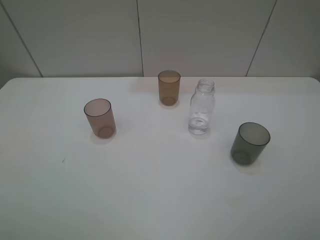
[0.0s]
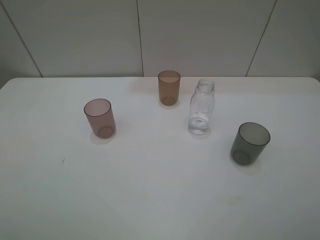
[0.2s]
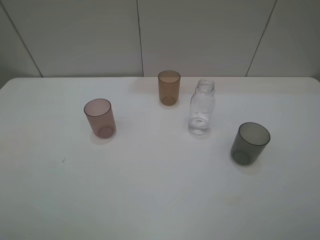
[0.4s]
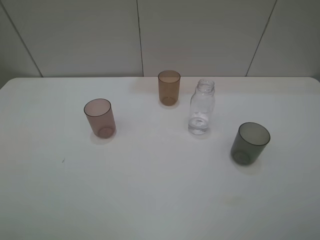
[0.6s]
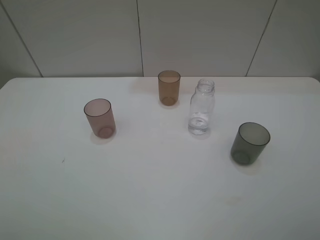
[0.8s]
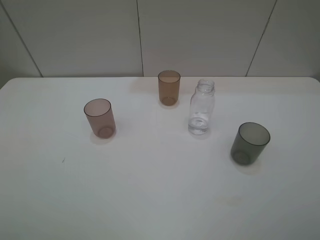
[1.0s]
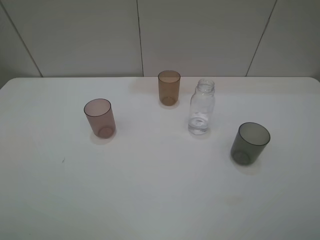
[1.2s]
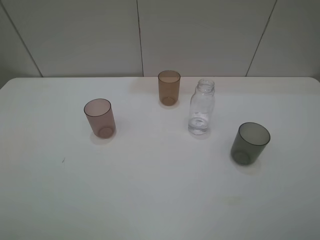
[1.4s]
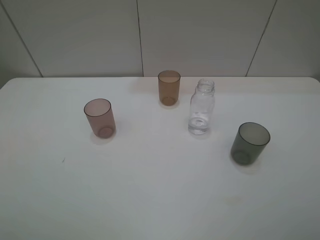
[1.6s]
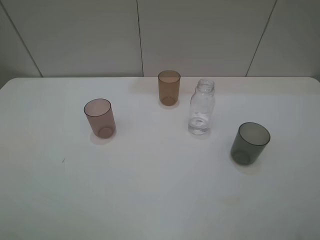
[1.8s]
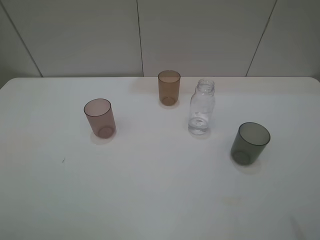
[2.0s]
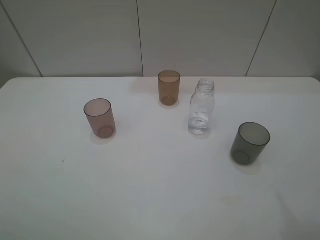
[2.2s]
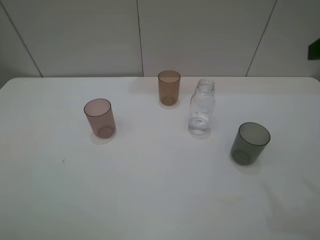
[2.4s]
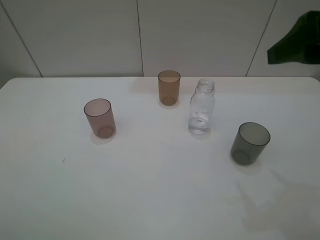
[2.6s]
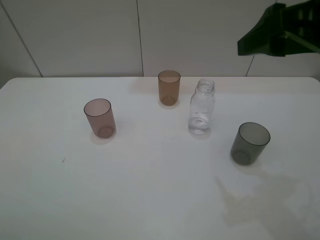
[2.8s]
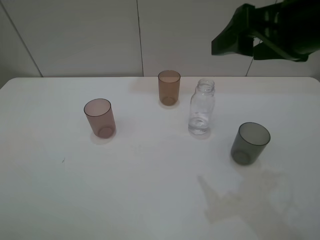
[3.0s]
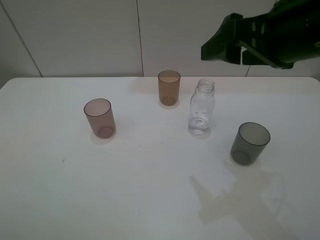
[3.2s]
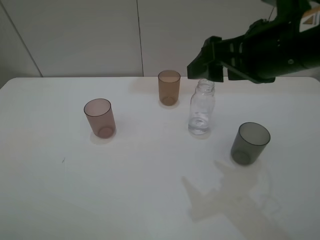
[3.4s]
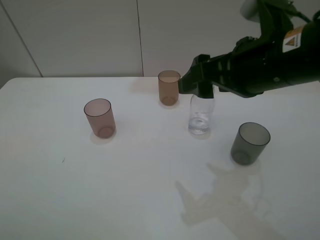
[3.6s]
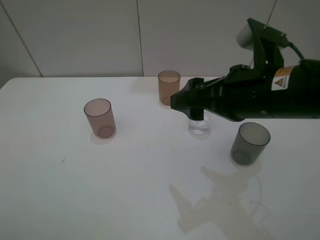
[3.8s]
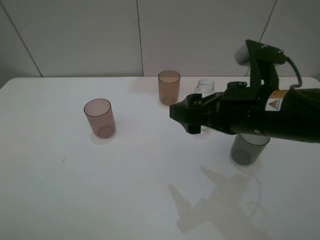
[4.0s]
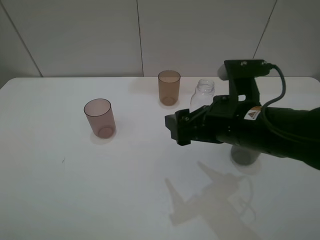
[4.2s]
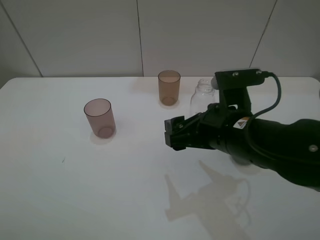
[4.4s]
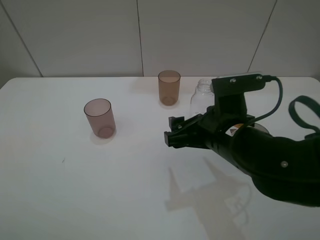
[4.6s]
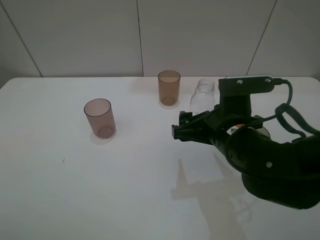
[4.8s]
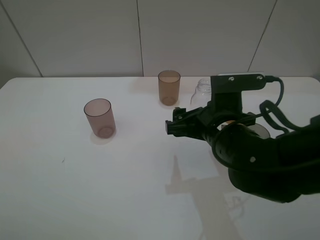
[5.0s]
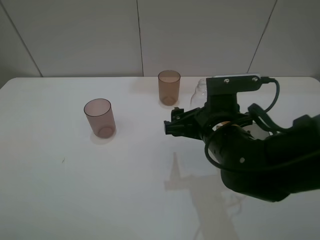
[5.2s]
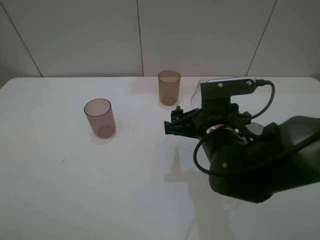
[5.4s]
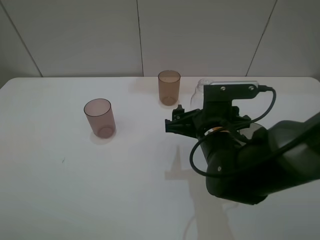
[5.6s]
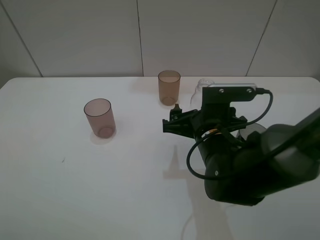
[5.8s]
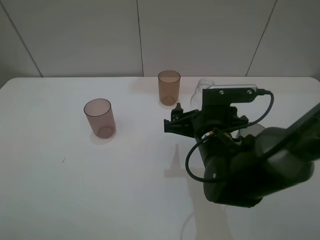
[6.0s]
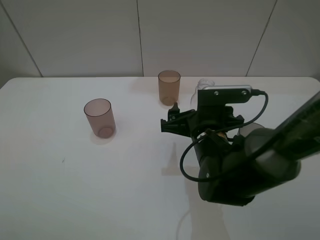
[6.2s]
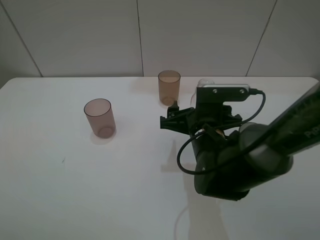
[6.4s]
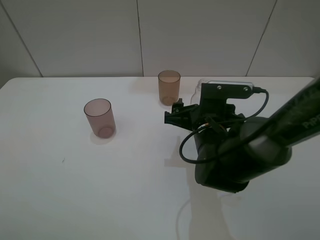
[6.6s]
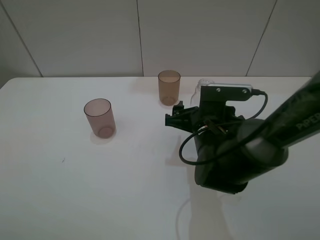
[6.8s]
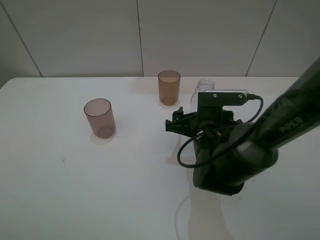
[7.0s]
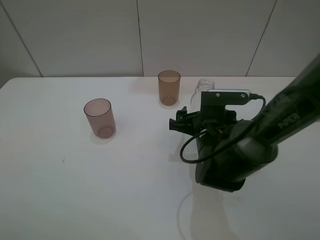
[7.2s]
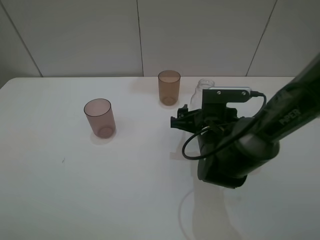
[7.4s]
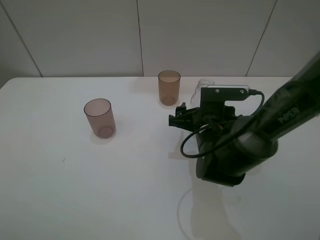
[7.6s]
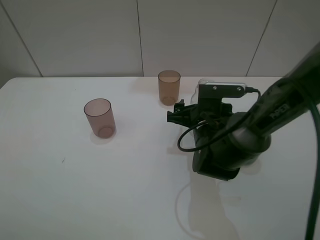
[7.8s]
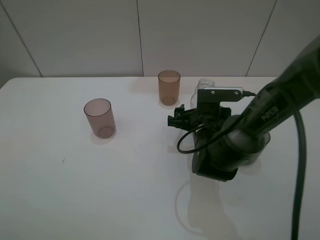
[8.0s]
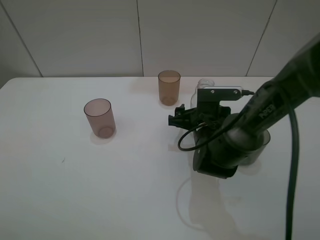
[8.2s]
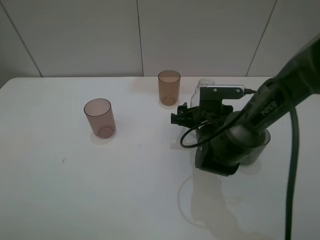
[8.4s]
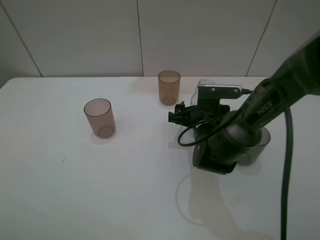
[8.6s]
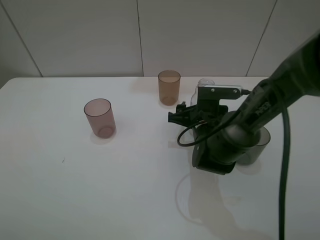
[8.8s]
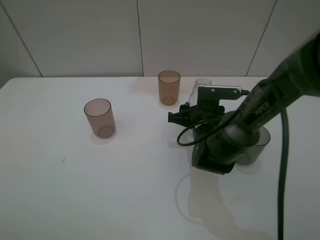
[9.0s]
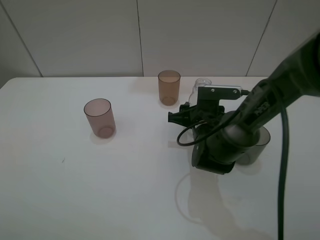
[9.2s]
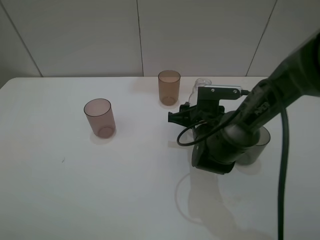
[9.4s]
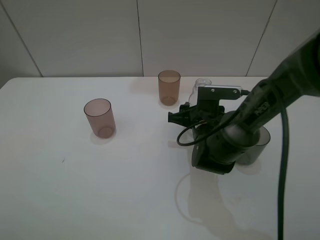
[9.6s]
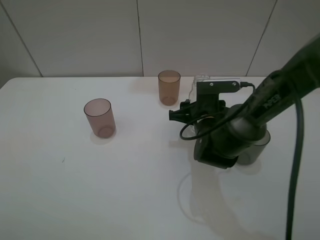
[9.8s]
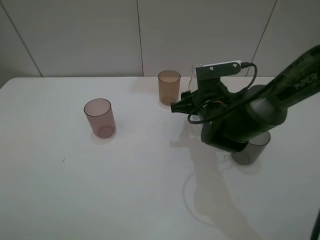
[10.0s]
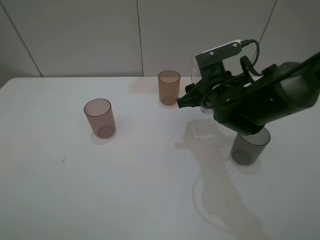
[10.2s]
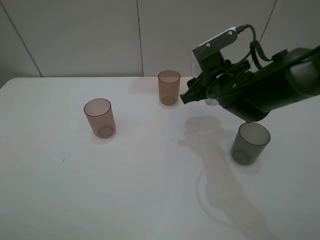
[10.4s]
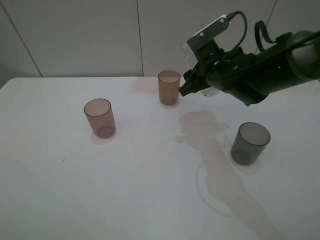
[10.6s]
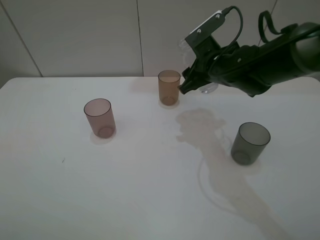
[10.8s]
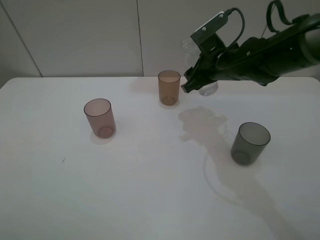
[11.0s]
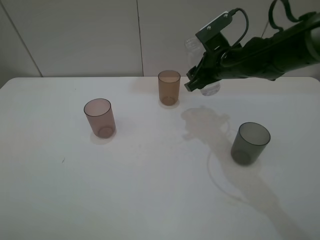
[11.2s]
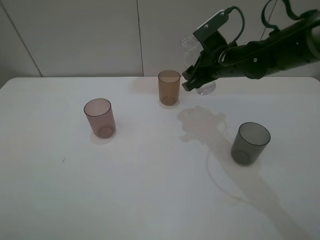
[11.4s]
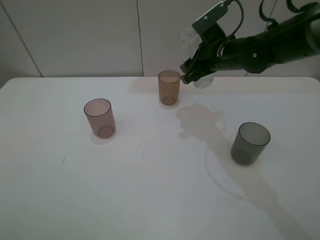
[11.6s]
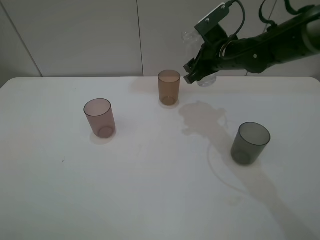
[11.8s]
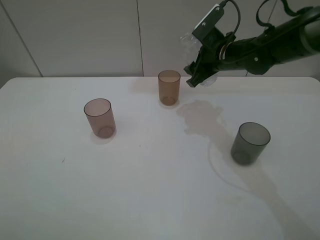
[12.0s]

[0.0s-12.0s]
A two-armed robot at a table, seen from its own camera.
Task of the whole recording: pick up the bottle filled with water and pour water into the middle cup of the three cups.
Step, 0.0s to 9.0s: Grasp the transparent bottle with the right gripper.
0.0s to 1.6s: The two grippers keep their place.
1.6s to 3.0s: The right gripper shifts approximately 25 cm forward and to the left.
3.0s to 4.4s: The right gripper shifts about 15 cm downward and to the left.
4.4s to 6.0s: The right gripper moves downward, approximately 5 cm.
6.0s to 7.6s: The right gripper shifts by approximately 5 cm.
7.6s to 9.0s: The right gripper closes.
9.0s to 10.4s: The right gripper heads upward, covering some 10 cm.
10.4s to 12.0s: The right gripper shifts some 5 cm forward.

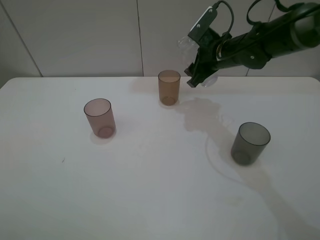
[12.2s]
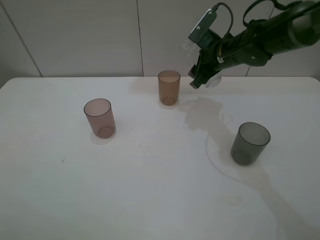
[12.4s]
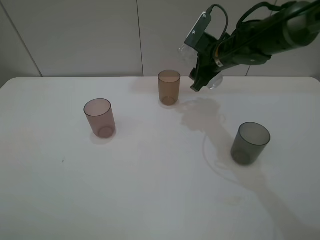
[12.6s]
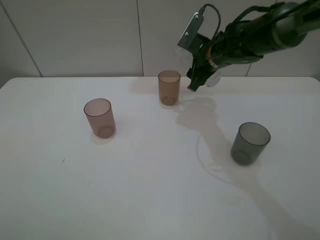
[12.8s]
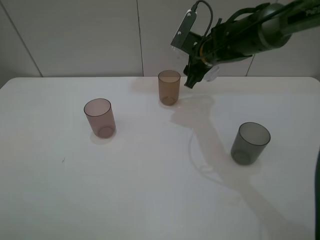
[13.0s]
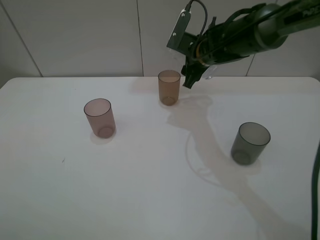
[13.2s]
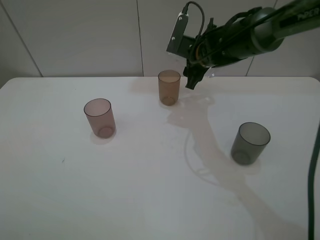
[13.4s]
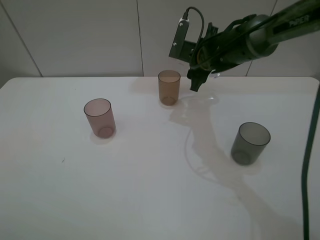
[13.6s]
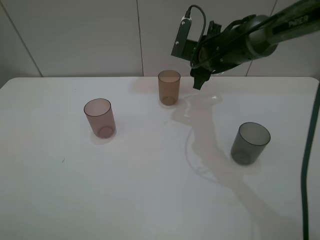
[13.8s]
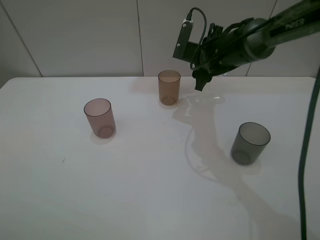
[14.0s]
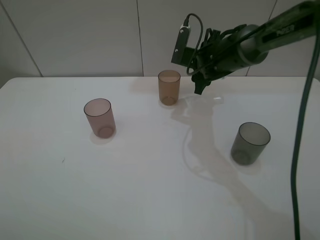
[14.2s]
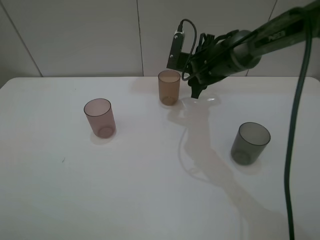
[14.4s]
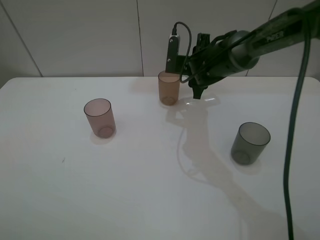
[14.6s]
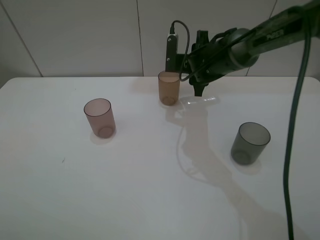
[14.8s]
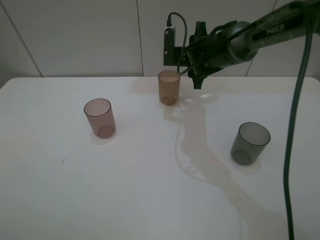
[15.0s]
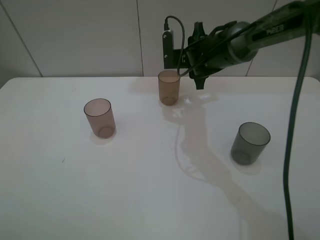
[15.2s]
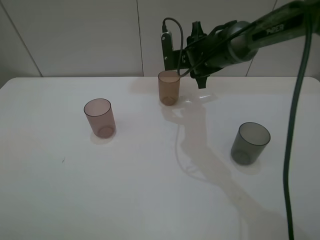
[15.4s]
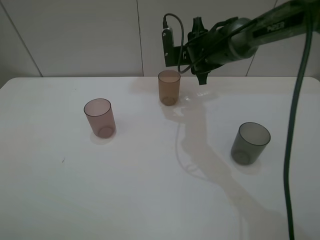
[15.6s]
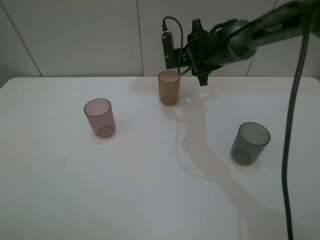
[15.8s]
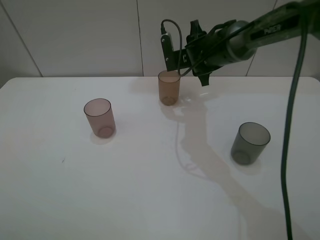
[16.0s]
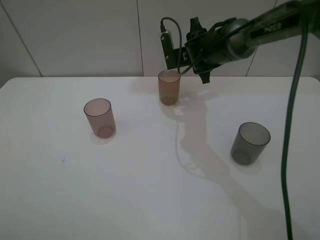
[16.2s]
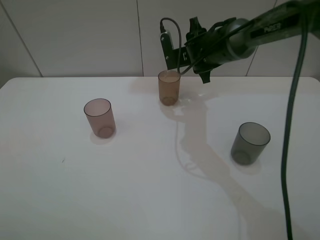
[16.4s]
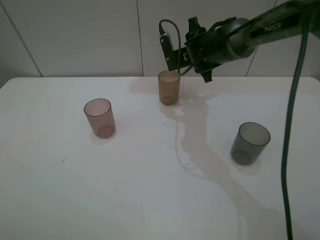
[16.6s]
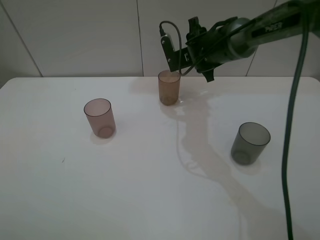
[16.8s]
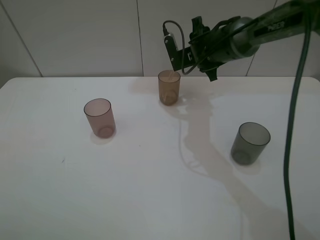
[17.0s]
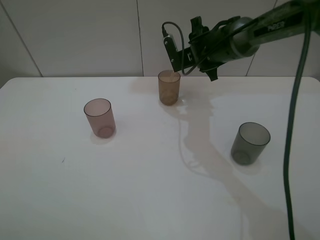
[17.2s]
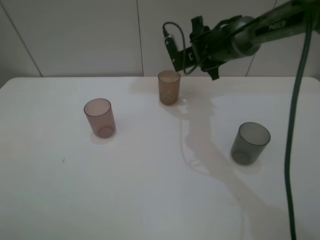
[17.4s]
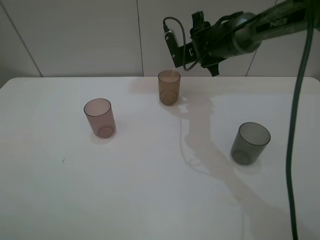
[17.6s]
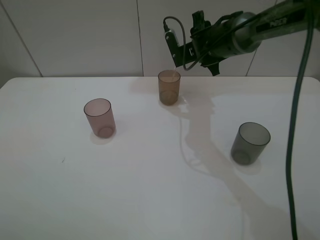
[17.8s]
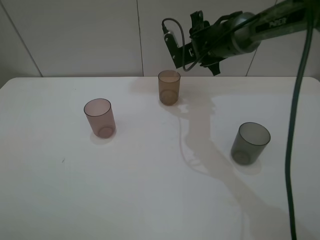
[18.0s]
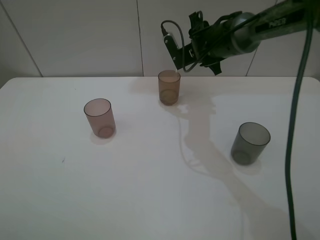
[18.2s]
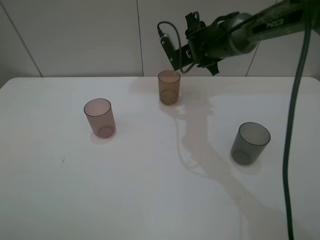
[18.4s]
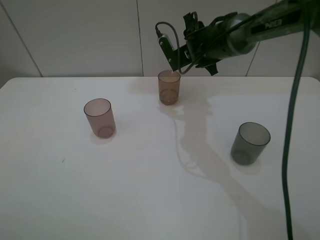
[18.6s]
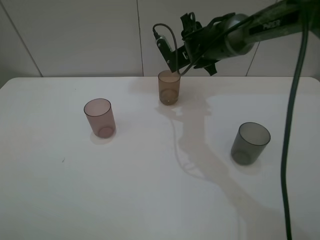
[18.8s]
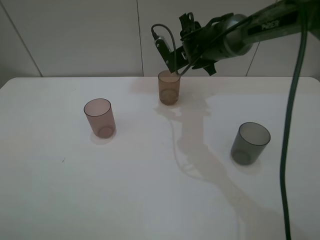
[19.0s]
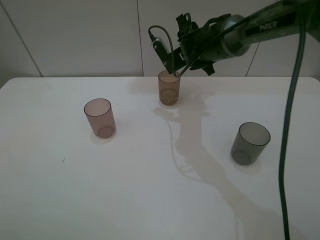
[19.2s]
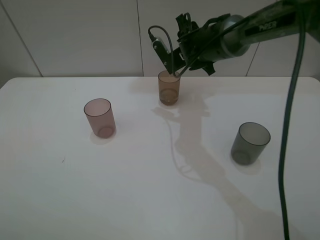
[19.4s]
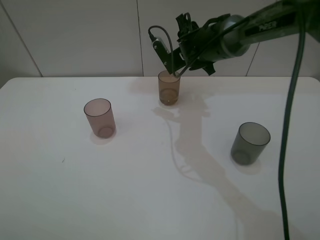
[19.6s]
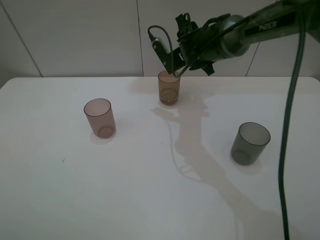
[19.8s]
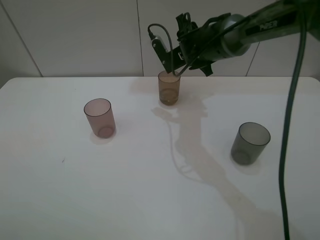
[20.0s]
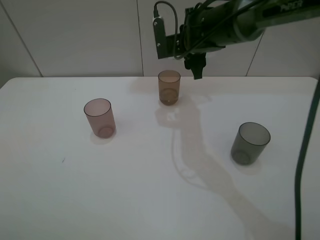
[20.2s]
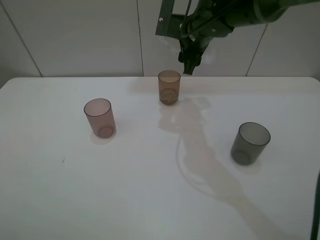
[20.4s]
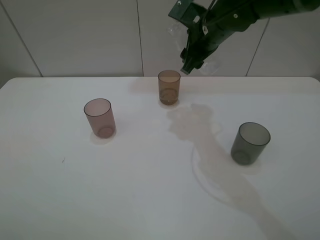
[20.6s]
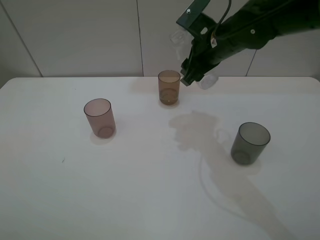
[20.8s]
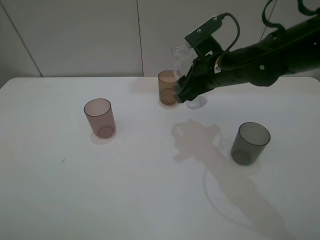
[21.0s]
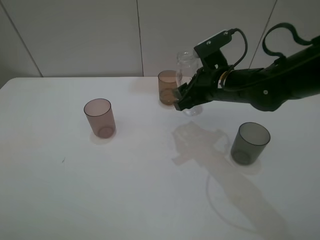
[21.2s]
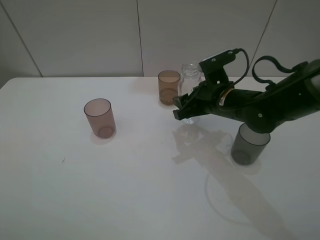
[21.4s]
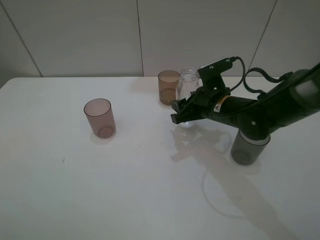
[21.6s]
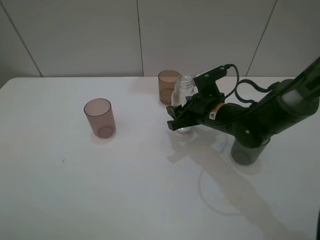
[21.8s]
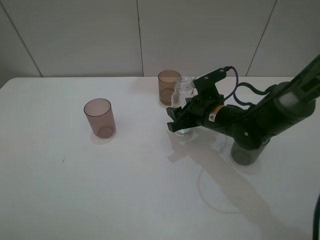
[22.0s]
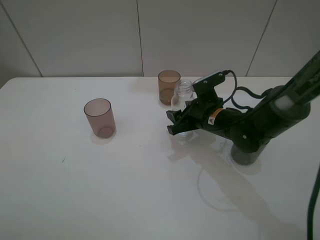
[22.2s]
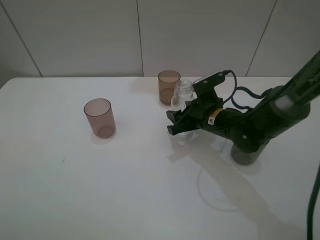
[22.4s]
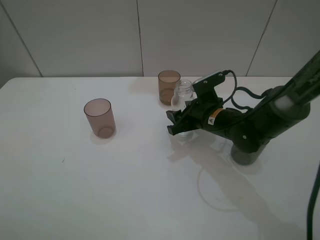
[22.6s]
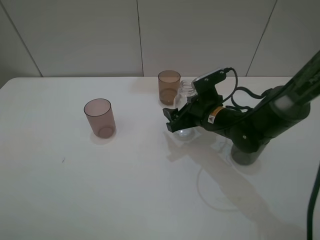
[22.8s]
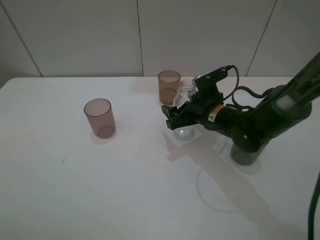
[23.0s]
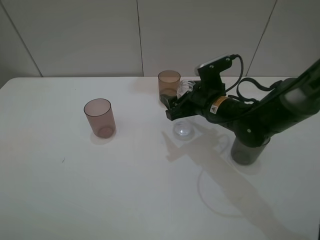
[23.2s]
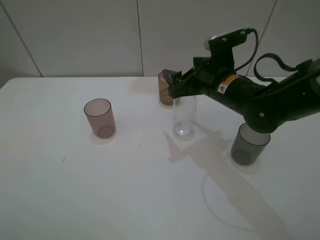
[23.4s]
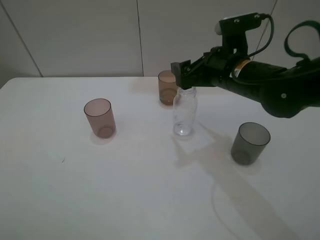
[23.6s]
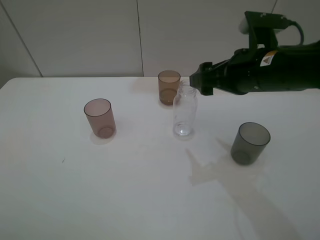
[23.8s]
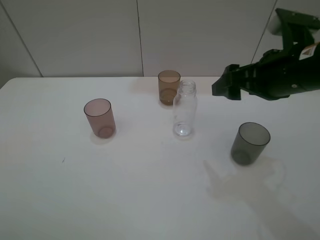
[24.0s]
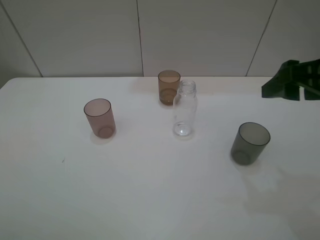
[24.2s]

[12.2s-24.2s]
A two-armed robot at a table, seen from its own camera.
Task of the whole recording: pick up the bottle filled with water and pour water into the middle cup of the three cups.
Step, 12.2s to 19.2s: Pour water from transparent bottle tobrown cup with the right gripper.
Step, 19.4s to 23.8s: Place the transparent bottle with the right gripper.
15.2s to 16.6s: There are only small adjustments of the grippers.
16.6s to 19.8s: The grippers stay close to where they were, moving slightly.
19.8s to 21.2s: The right gripper travels backward by some 15 cm.
21.2s to 22.6s: The right gripper goes roughly 10 cm downward.
22.6s to 24.2s: The right gripper moves upward, to the right and backward, some 25 cm, and opens its fingers.
